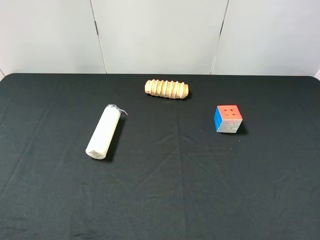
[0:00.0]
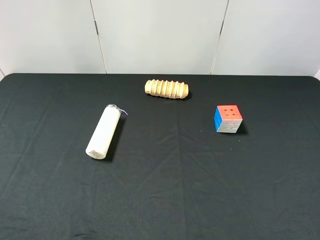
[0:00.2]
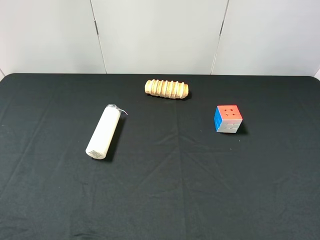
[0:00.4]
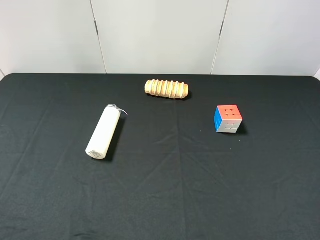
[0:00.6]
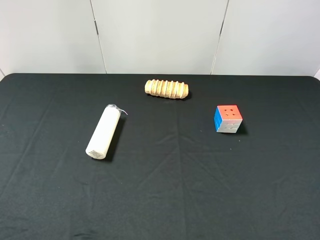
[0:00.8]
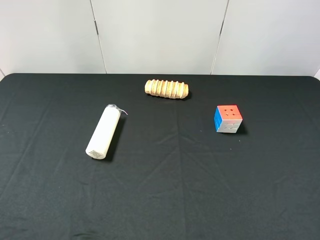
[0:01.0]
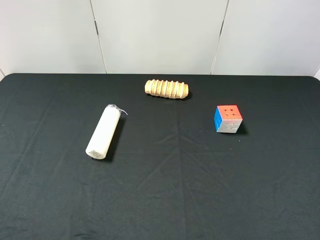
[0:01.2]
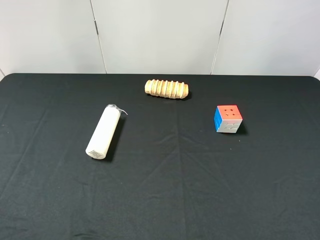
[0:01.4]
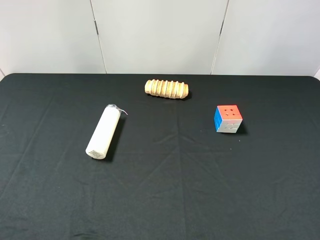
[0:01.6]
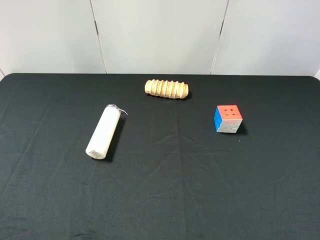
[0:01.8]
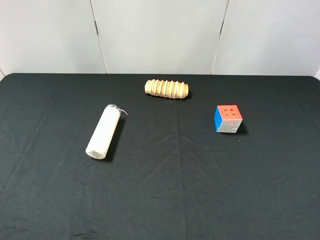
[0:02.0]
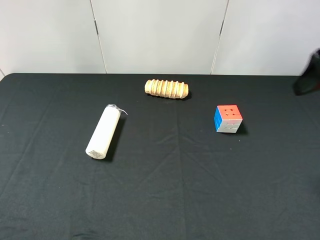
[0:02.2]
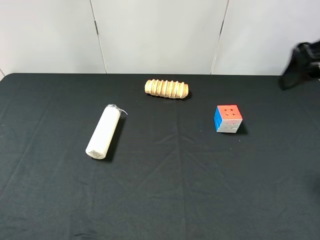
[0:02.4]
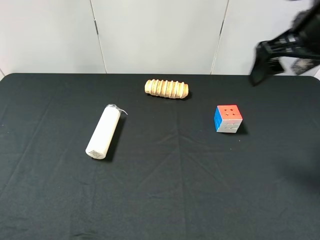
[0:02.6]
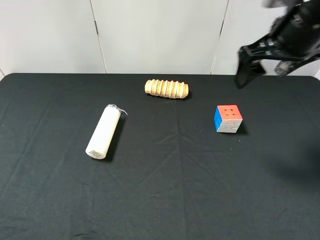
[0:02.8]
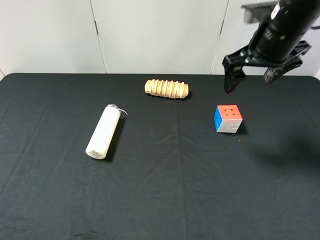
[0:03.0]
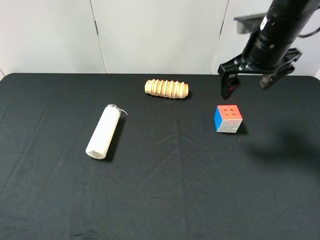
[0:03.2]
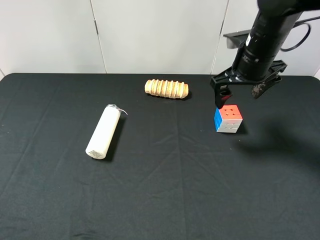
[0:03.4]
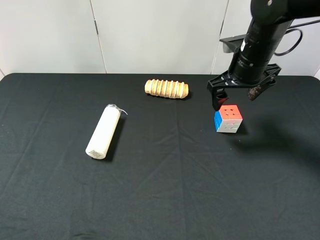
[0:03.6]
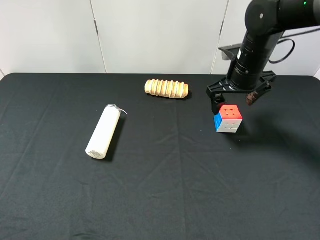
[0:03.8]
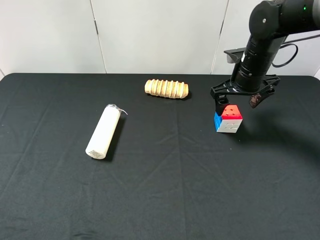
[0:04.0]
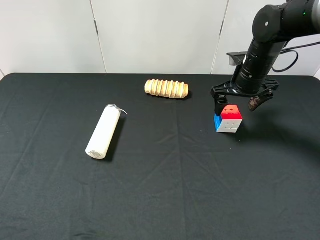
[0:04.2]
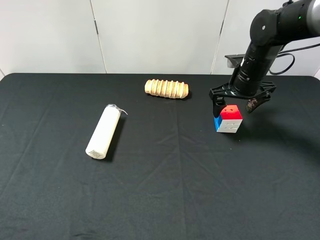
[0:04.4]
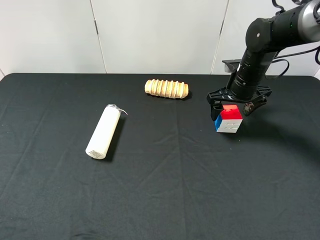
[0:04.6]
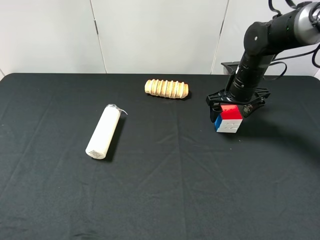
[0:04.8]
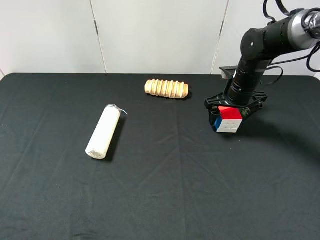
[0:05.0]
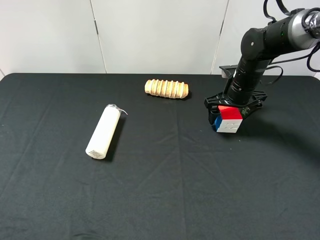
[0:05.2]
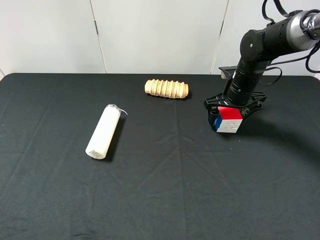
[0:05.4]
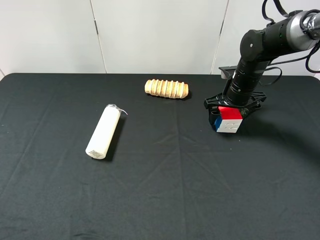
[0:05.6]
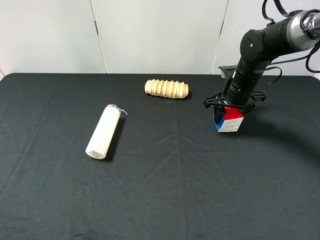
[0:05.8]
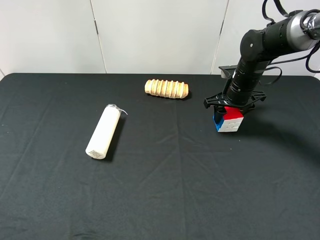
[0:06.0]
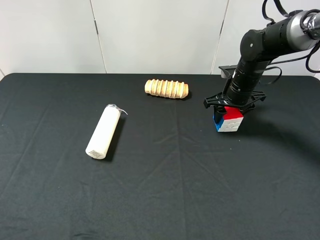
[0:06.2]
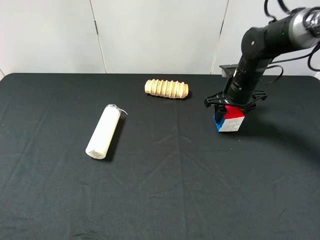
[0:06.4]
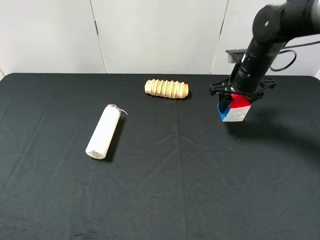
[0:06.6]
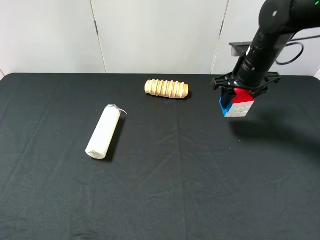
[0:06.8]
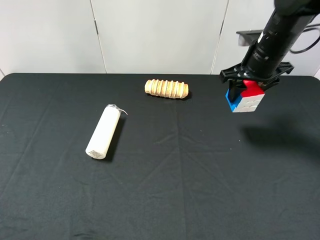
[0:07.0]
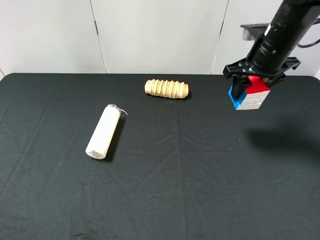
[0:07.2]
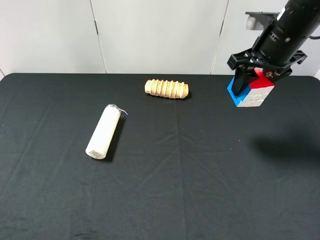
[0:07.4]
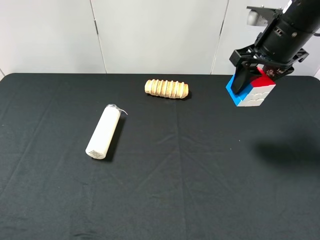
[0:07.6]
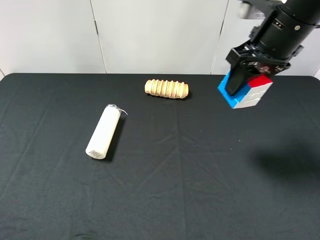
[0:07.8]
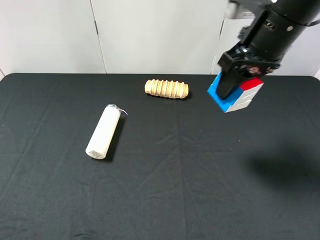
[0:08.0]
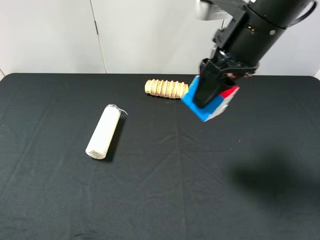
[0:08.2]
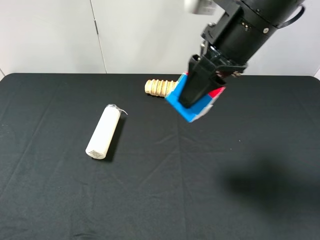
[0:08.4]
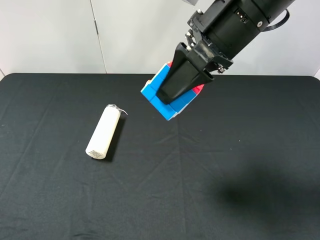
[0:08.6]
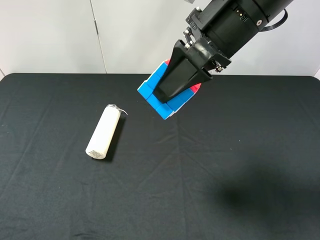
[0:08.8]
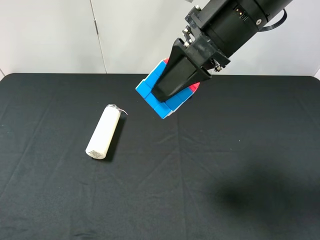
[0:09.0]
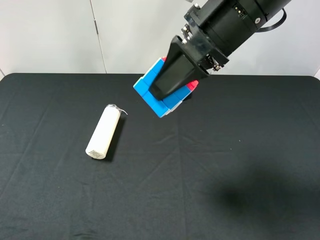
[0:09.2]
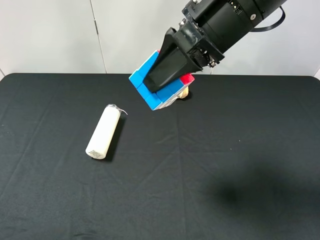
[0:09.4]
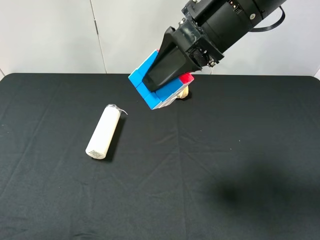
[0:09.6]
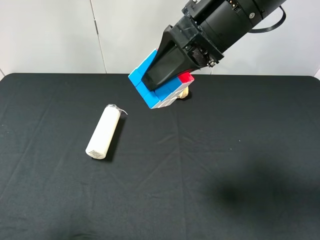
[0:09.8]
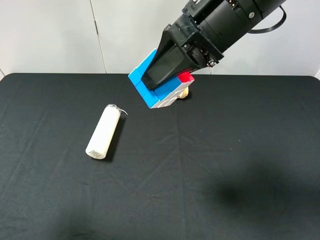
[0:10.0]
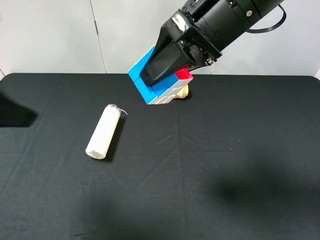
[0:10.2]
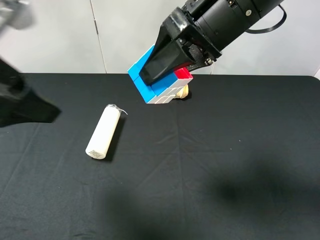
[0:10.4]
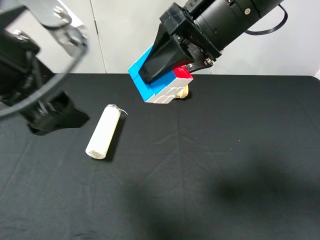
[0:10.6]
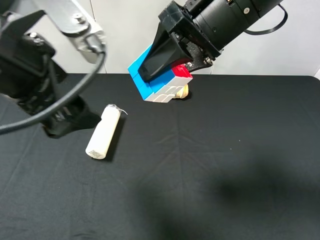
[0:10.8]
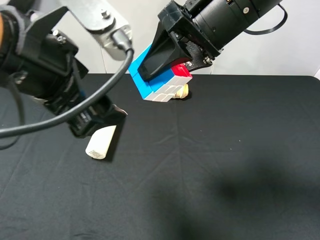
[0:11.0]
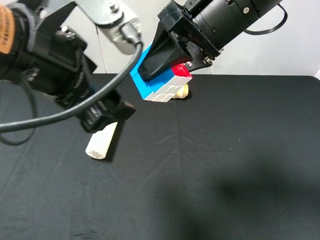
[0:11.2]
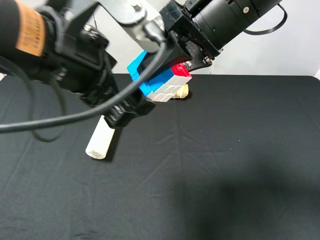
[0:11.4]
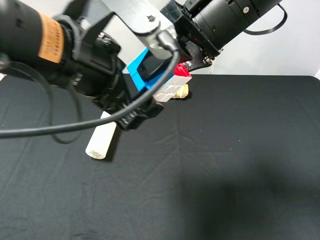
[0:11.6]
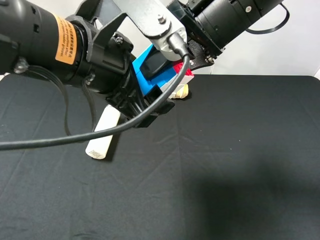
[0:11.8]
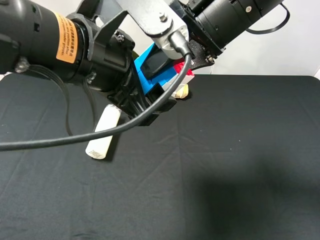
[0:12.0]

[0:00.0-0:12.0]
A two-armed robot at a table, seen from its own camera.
Task of the whole recording: use the right gripper to pick up the item and transfer it from the right gripper to the left gripper.
Step, 0:00.0 to 0:05.8: Use the right gripper to grab the Rubik's Cube on the right side of the table.
0:01.6 to 0:03.0: The right gripper moves forward and to the left, about 25 cm.
0:03.0 to 0:04.4: The right gripper travels downward and forward by about 15 cm.
0:04.4 to 0:06.0: The right gripper closes its fingers.
0:06.0 to 0:07.6: The right gripper heads upward and backward, covering some 20 cm.
0:07.6 to 0:09.0: The right gripper shifts approximately 15 cm to the left and backward.
0:09.0 to 0:10.4: The left gripper goes about 15 cm forward and to the right.
0:10.4 to 0:12.0: The left gripper travels to the right by some 10 cm.

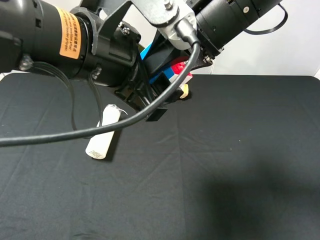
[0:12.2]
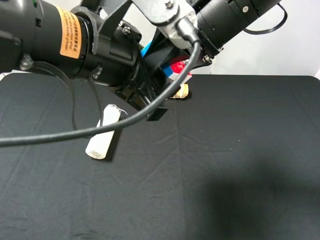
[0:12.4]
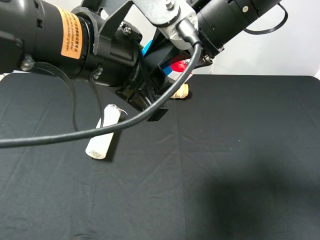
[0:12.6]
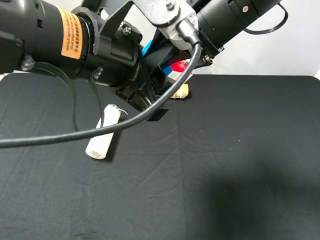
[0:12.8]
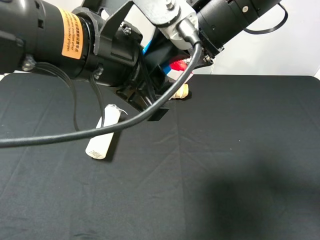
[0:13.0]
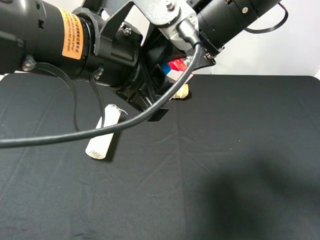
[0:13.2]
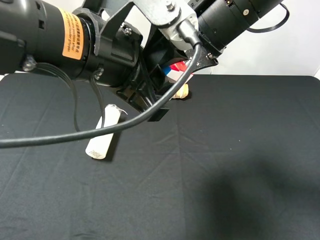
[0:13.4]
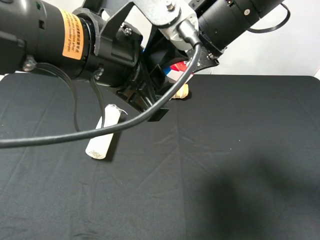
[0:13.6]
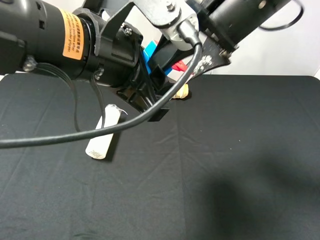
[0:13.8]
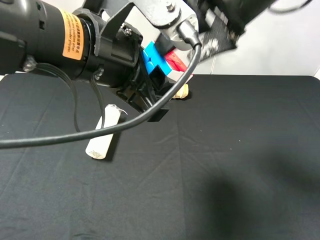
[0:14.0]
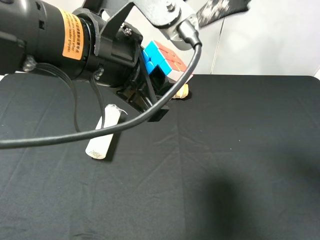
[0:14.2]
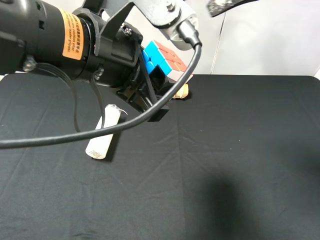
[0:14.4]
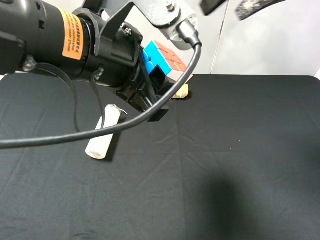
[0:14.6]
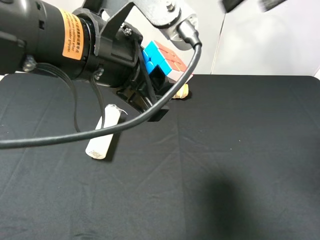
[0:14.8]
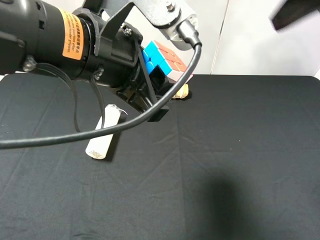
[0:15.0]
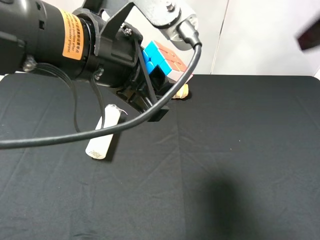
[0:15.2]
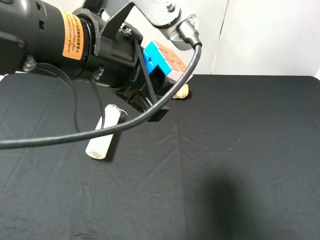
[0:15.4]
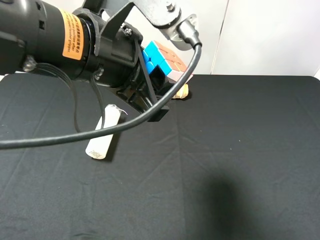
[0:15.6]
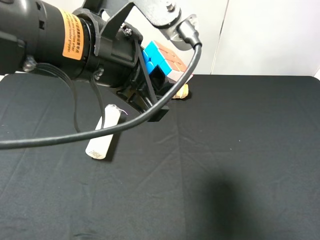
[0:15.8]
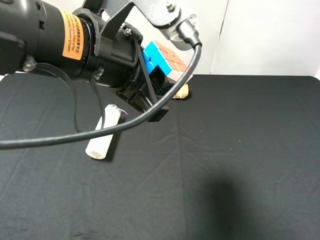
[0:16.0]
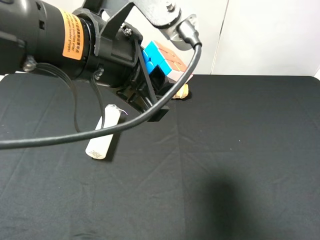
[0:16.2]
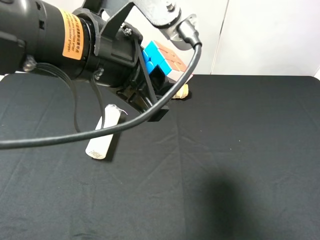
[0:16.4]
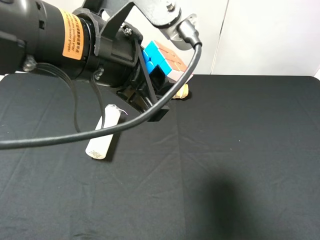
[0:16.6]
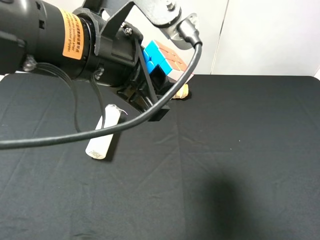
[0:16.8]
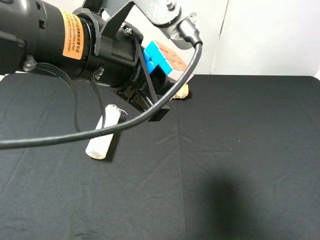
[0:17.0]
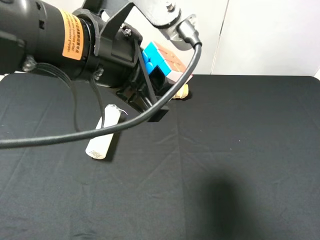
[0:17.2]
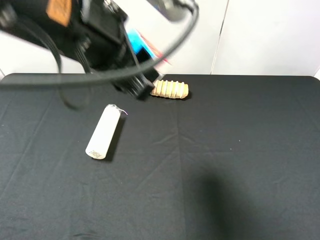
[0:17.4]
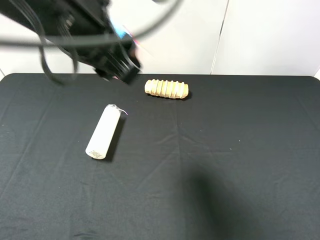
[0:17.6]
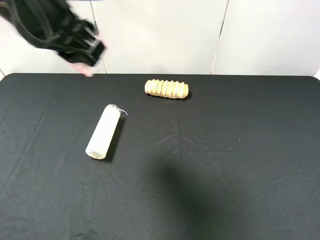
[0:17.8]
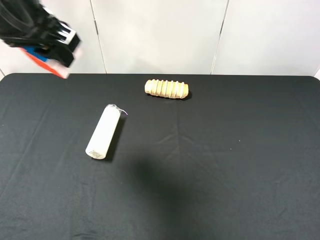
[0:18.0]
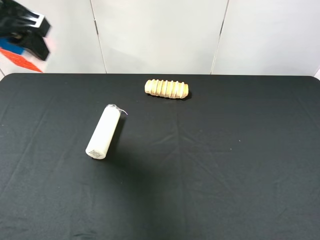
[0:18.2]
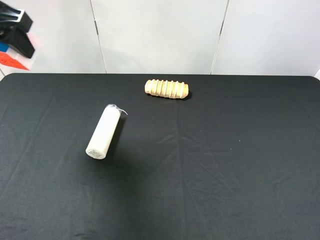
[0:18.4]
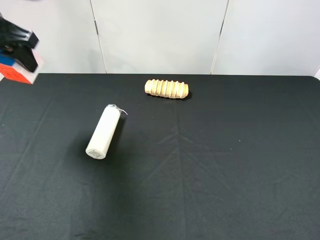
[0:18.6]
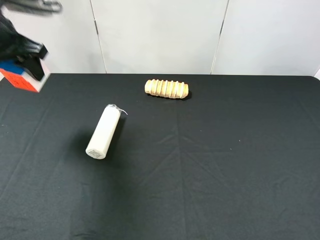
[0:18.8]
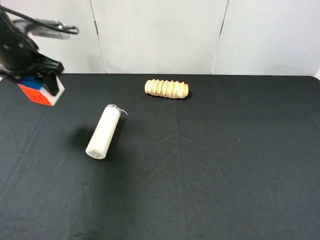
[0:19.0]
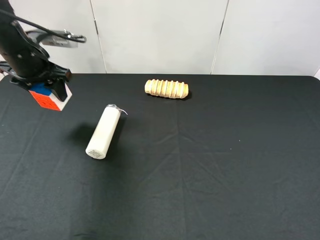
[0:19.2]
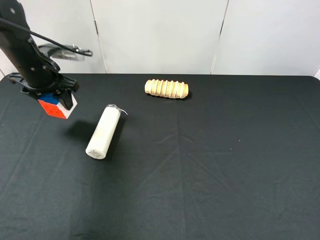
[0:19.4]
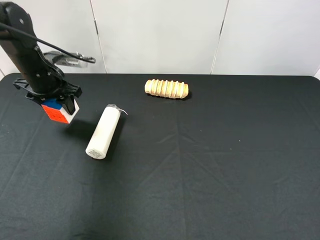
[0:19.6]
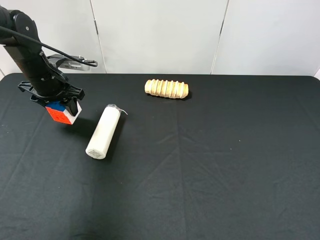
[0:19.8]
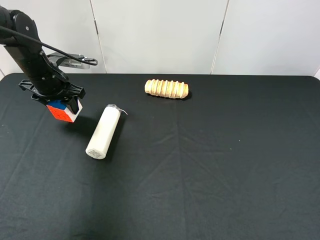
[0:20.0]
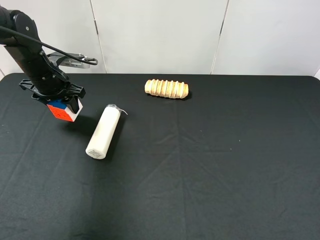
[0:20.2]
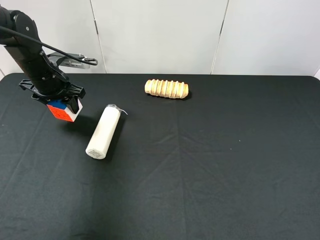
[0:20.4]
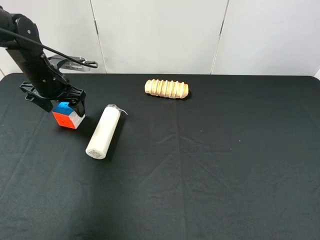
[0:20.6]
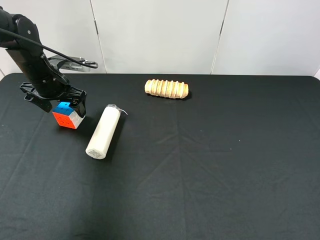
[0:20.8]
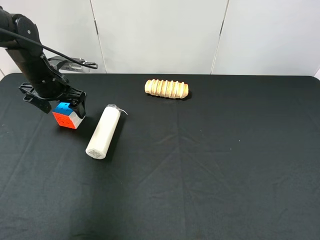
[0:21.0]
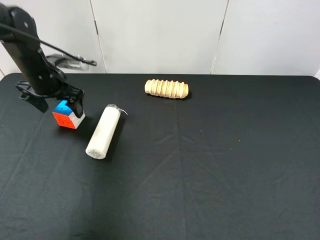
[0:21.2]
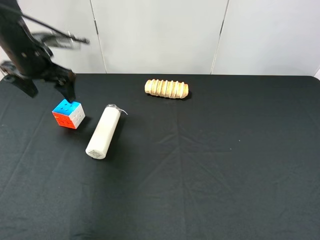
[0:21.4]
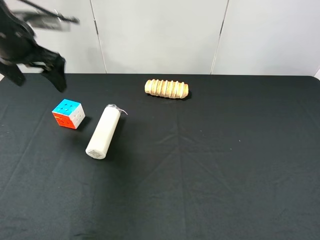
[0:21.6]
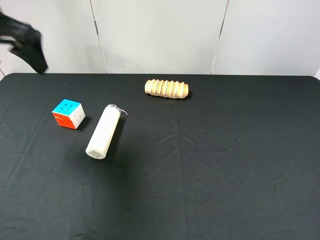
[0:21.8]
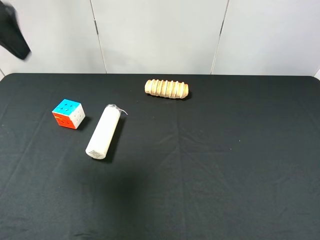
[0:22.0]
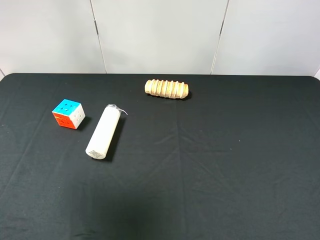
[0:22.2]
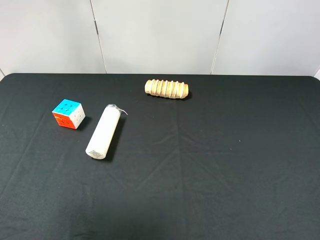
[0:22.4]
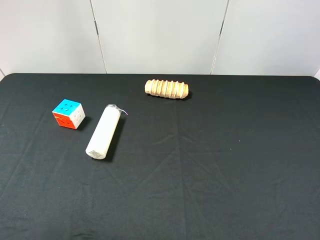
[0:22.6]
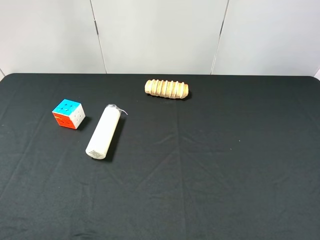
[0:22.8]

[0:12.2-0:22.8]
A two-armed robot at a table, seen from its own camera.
Task of the whole recording: use the right gripper to pick up the item and transfer it from the right gripper to the left gripper.
Step, 0:13.8 to 0:20.6: The left gripper places milk on the left side of the table.
0:12.2 to 0:13.8: The left gripper closes its fingers; the right gripper opens its fingers.
0:13.8 to 0:15.2: The right gripper is displaced to the right, backward and upward by roughly 20 cm.
0:15.2 to 0:16.8: The right gripper moves backward and downward, about 20 cm.
0:16.8 to 0:18.2: The left gripper goes some 20 cm to the left and forward.
0:18.2 to 0:19.8: The left gripper travels downward and forward by about 20 cm.
0:19.8 to 0:21.2: The left gripper opens.
0:21.2 to 0:22.8: The left gripper travels backward and upward by some 40 cm.
